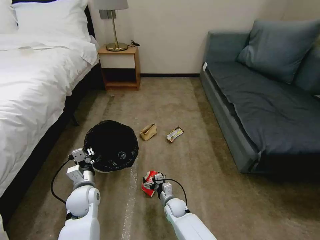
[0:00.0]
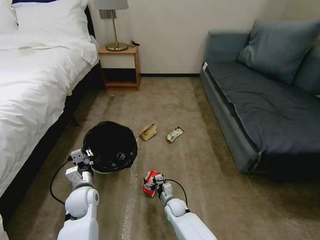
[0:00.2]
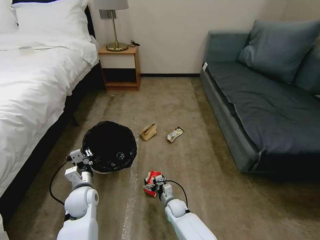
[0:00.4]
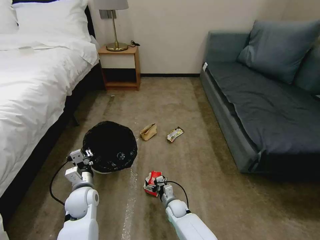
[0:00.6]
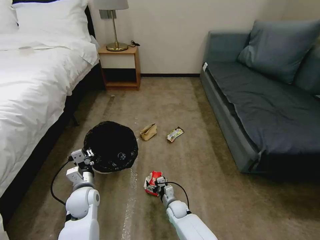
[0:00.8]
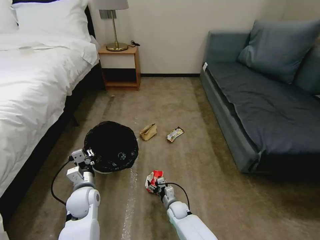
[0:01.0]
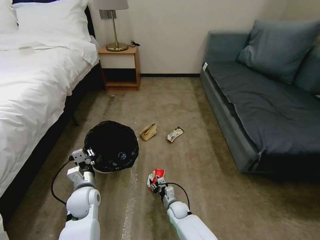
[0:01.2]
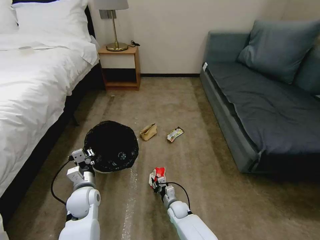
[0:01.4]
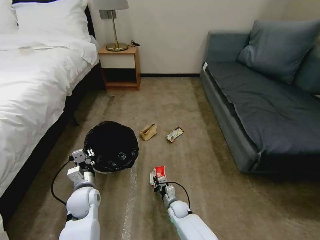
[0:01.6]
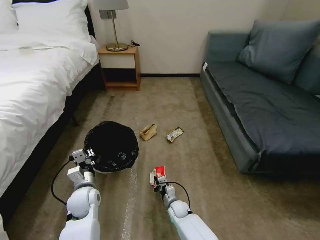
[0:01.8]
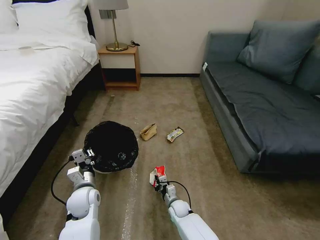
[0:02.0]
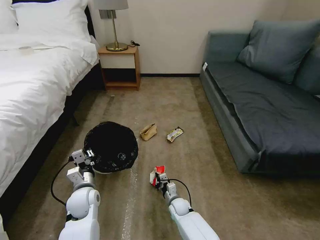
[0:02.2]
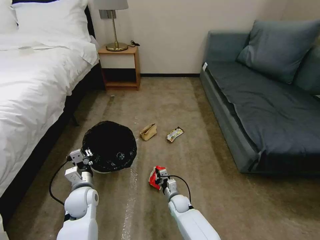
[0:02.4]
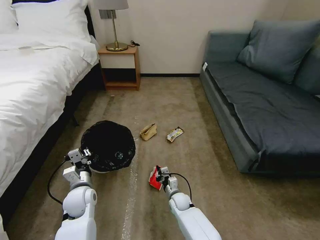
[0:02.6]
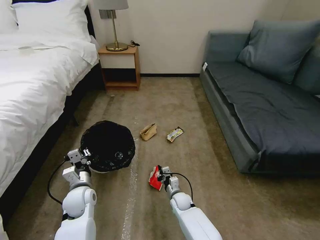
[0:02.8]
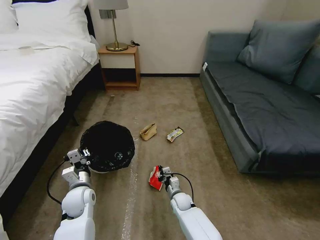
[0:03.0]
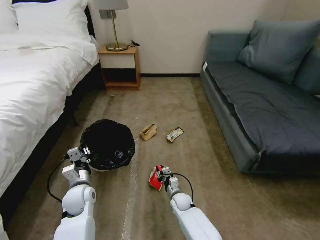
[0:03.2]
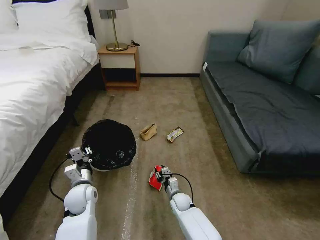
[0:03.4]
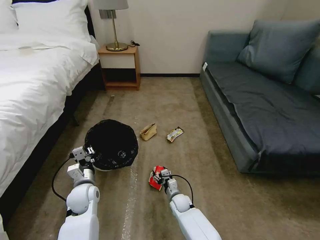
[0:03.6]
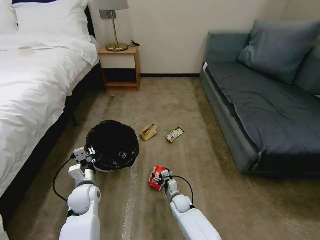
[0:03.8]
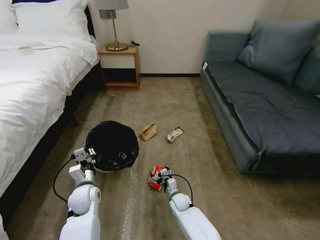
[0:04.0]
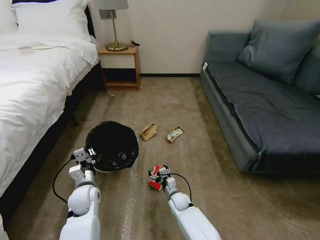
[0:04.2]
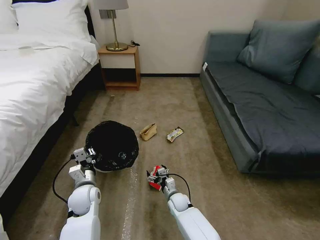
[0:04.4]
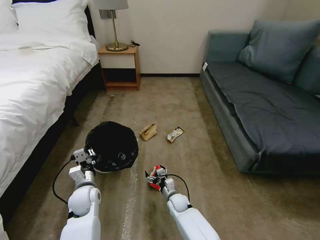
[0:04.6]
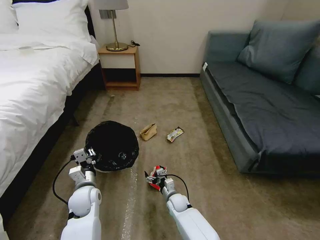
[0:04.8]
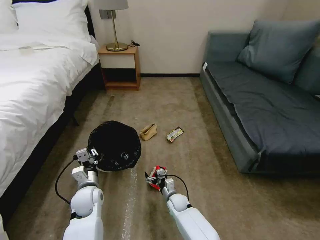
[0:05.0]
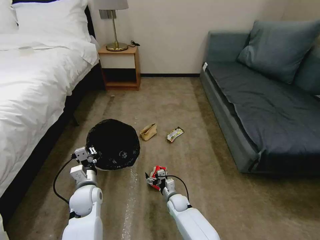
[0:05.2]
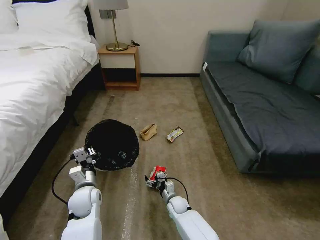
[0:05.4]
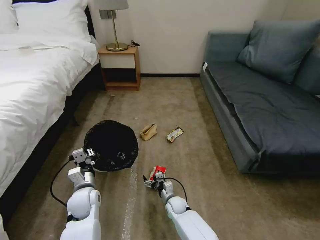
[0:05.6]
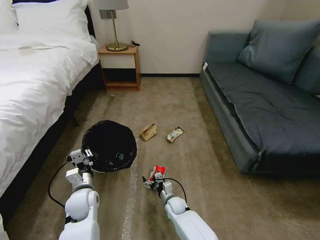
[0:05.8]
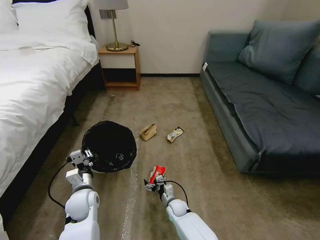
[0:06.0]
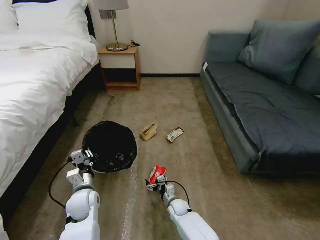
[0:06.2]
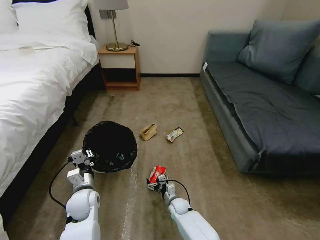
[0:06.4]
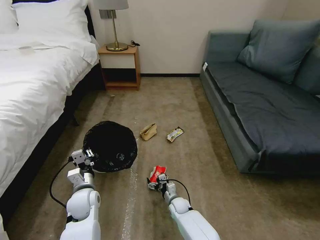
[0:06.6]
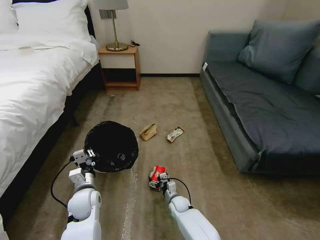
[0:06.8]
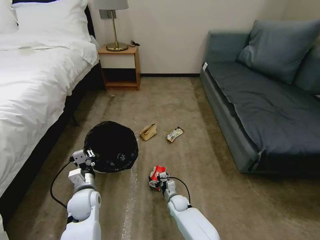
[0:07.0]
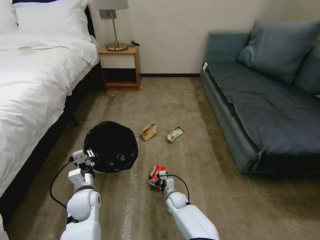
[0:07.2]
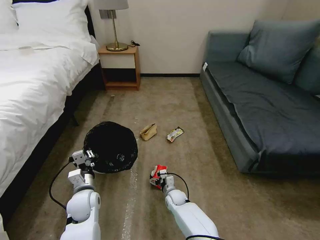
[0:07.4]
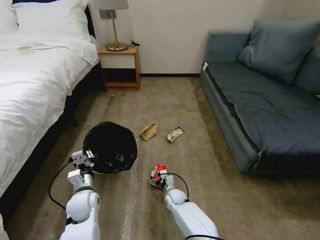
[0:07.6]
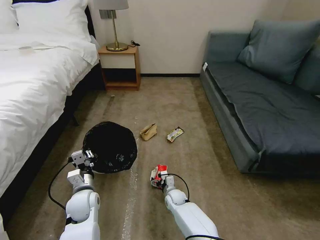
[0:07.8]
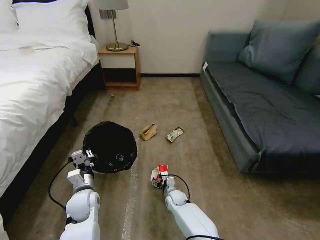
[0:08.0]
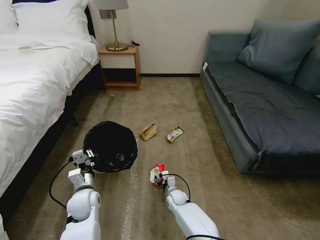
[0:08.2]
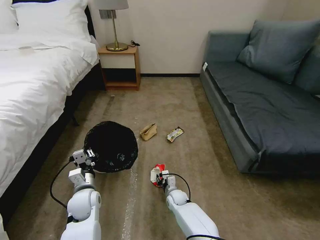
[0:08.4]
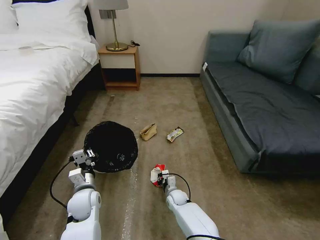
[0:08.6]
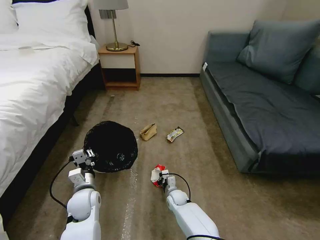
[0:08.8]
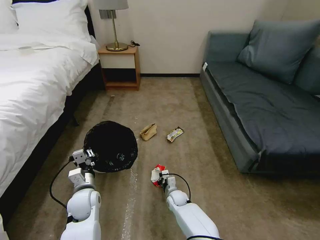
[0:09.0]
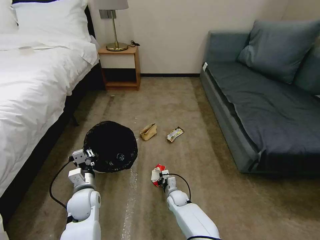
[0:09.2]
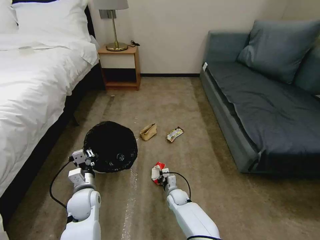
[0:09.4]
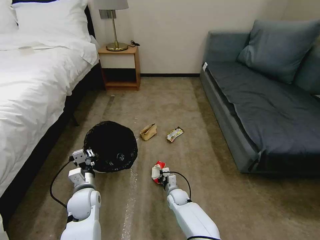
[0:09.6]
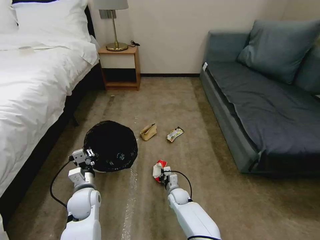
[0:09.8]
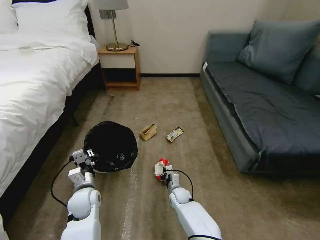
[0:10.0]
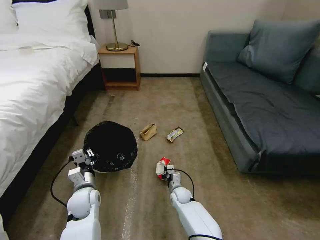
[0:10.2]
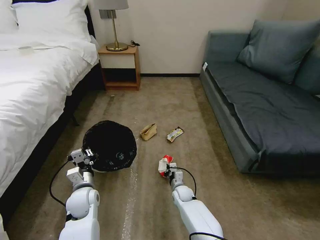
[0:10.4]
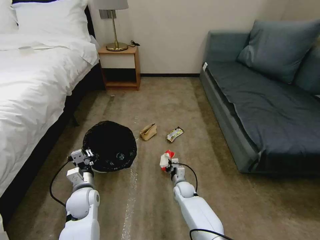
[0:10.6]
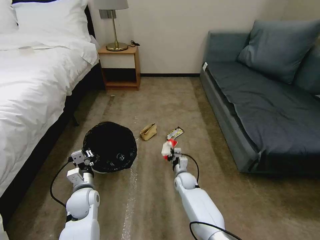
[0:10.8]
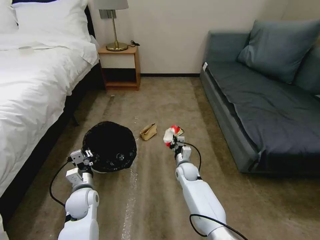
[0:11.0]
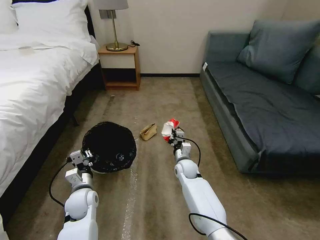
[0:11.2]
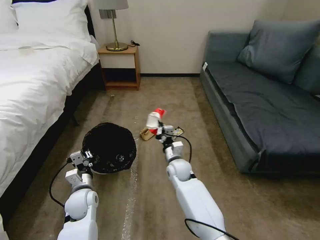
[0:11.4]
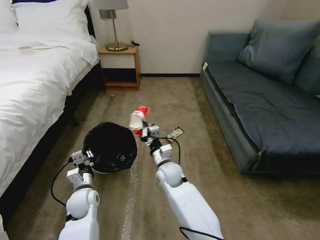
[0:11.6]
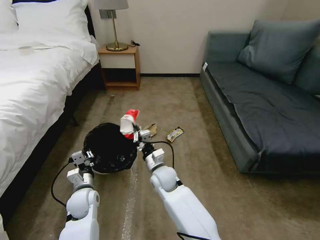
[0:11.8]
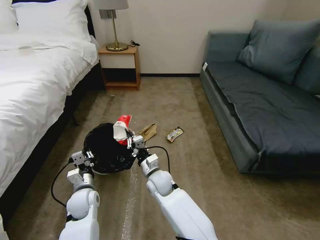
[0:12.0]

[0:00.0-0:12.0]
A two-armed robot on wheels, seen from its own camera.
Task of the whole recording: Pick up the trash bin, then pick up the garbage on the floor and place it into the trash bin.
0:00.0 to 0:01.6: The right gripper closes up.
0:01.6 to 0:03.0: The grippers stay close to where they were, moving slightly.
0:03.0 to 0:04.4: The right gripper opens.
0:04.4 to 0:07.6: The grippers move only a little.
0:07.6 to 0:09.0: The right gripper closes up.
0:09.0 to 0:10.4: There are only small adjustments of the grippers.
0:10.4 to 0:12.0: The right gripper goes some 20 cm upward and to the left.

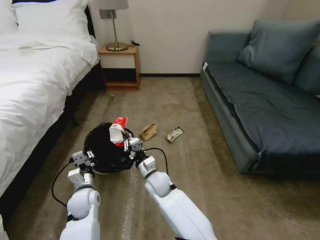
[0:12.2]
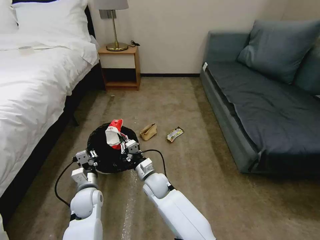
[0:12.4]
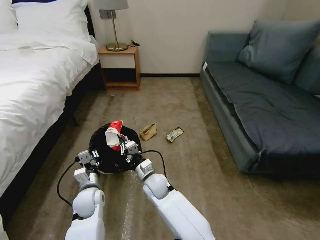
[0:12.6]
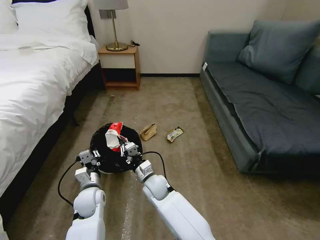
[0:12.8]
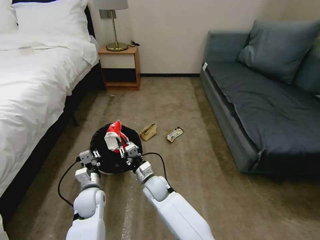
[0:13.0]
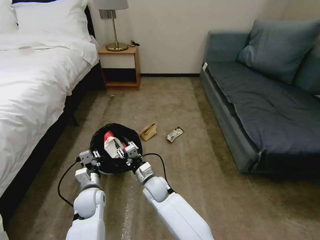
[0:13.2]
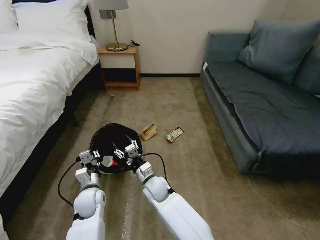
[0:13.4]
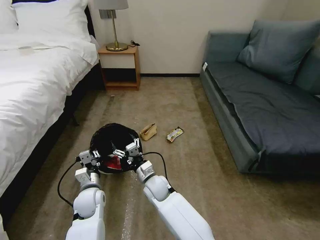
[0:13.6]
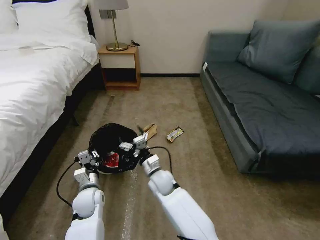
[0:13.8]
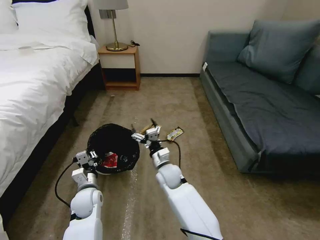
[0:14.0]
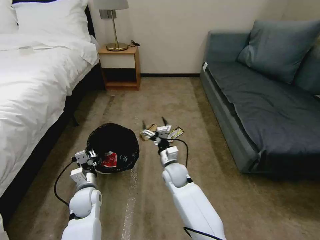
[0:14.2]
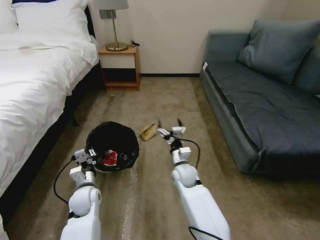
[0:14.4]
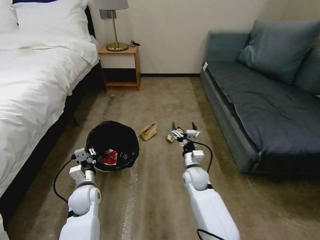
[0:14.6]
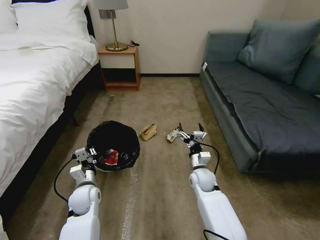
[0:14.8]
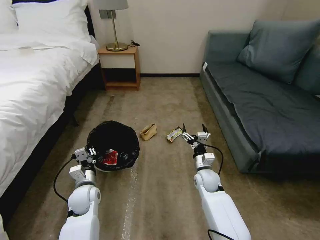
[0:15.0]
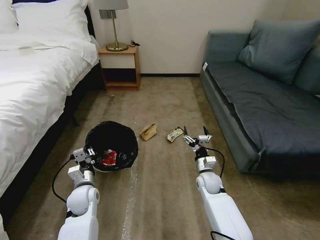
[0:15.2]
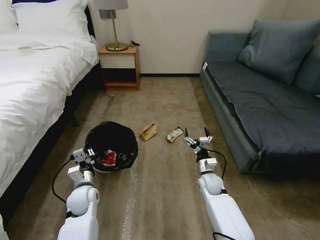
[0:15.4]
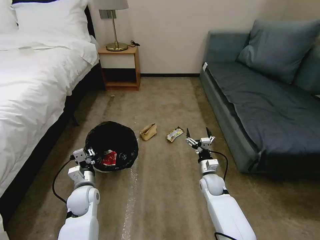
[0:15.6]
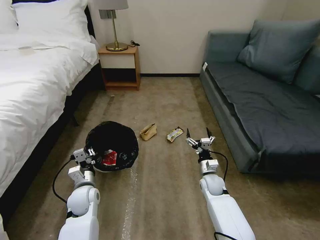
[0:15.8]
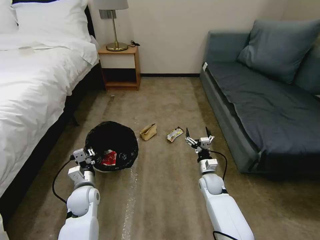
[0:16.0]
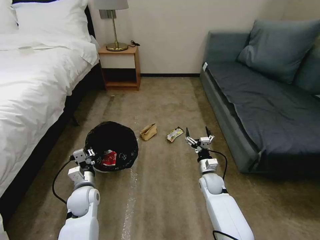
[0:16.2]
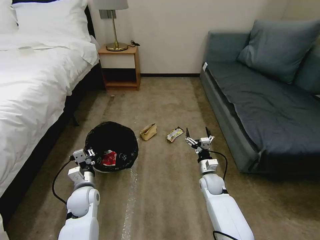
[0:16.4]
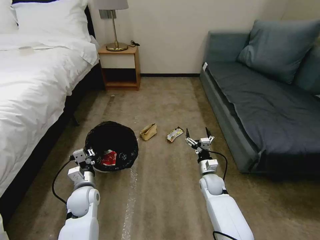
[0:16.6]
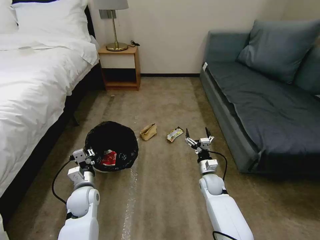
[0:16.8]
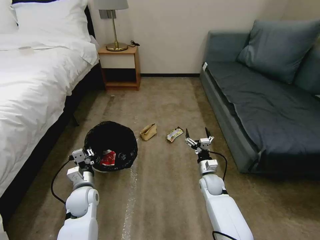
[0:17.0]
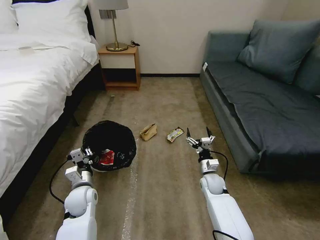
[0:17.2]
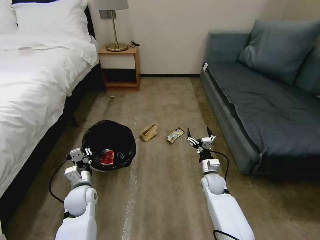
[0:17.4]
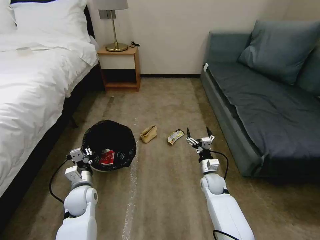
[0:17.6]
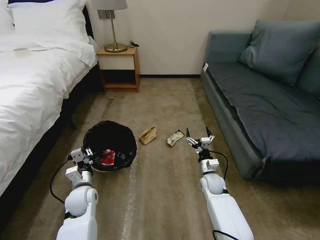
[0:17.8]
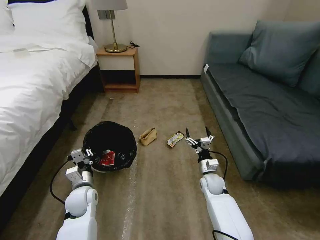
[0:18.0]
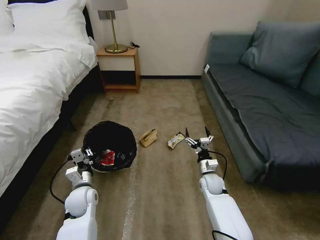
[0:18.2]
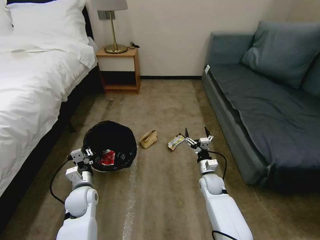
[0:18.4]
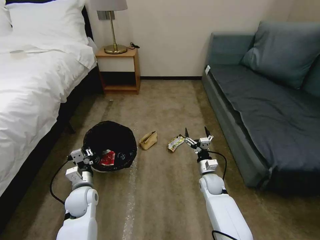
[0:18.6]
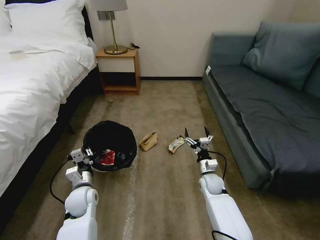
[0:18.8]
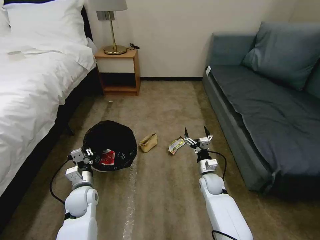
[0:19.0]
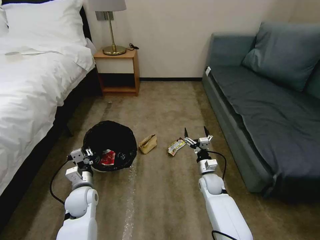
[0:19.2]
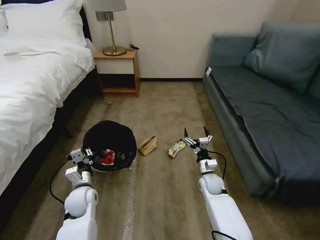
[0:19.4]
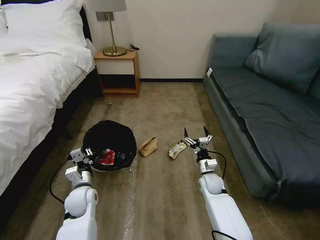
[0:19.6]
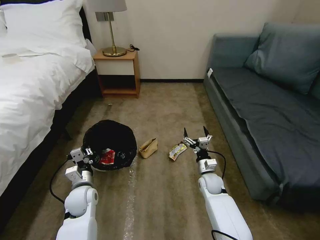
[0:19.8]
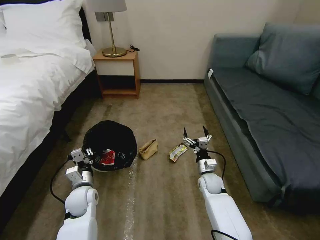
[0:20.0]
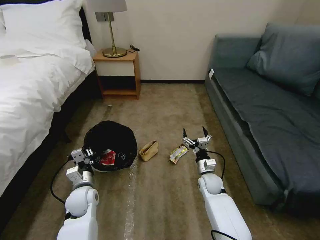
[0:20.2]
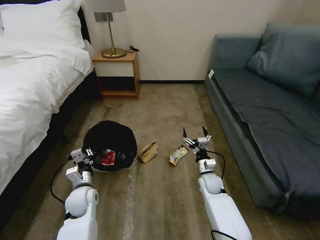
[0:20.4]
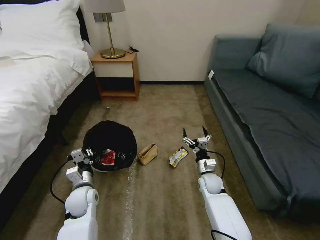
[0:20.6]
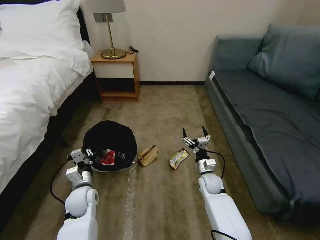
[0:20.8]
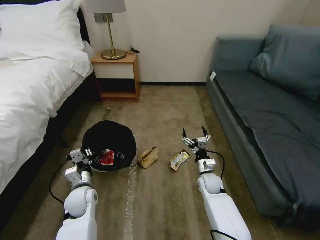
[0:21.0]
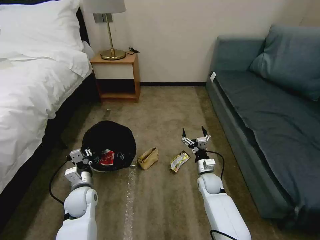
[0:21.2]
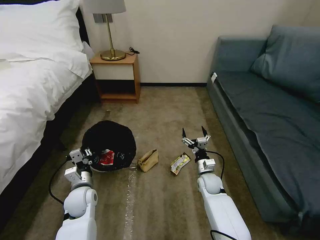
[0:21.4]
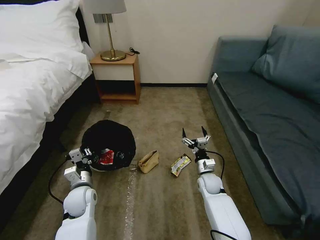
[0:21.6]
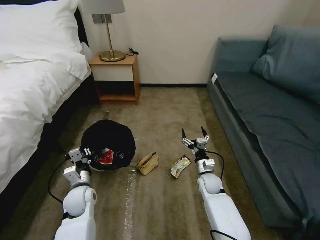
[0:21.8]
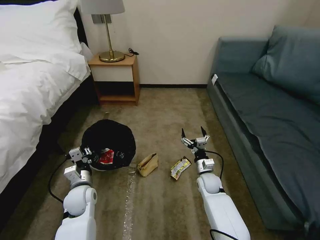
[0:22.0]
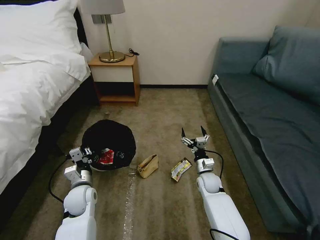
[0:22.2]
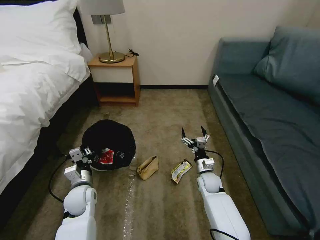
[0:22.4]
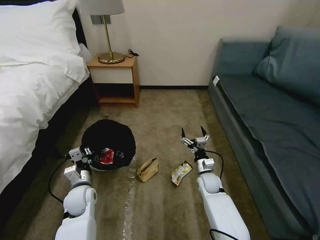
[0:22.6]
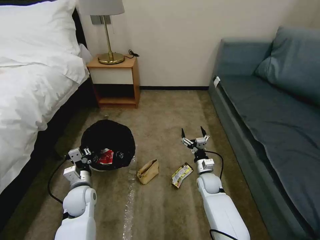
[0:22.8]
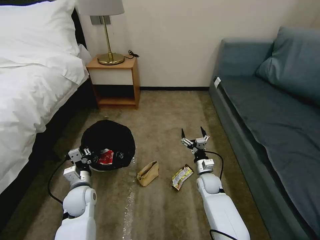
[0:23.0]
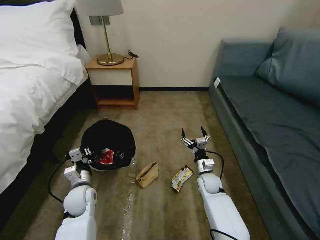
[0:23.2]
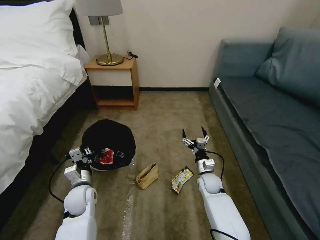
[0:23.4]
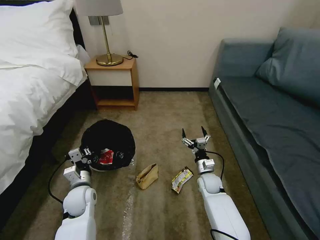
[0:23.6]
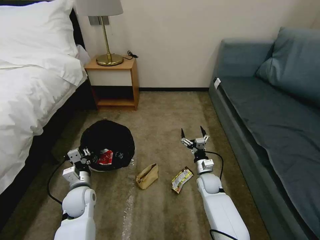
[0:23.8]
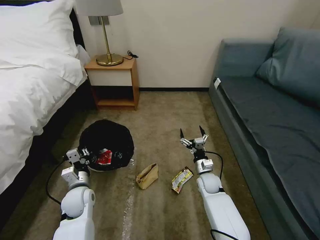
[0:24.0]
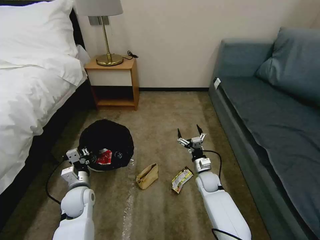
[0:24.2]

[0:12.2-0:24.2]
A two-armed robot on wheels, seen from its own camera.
Task of the whole recording: Pick up the trash bin, then pick up the garbage on the floor and place it into the trash bin.
0:12.2 to 0:13.8: The right gripper opens.
0:13.8 to 0:15.2: The right gripper heads to the right, covering some 20 cm.
0:15.2 to 0:16.6: The grippers stay close to where they were, moving slightly.
0:16.6 to 0:22.6: Both grippers stay about where they are.
0:22.6 to 0:24.2: The grippers stay close to where they were, moving slightly.
